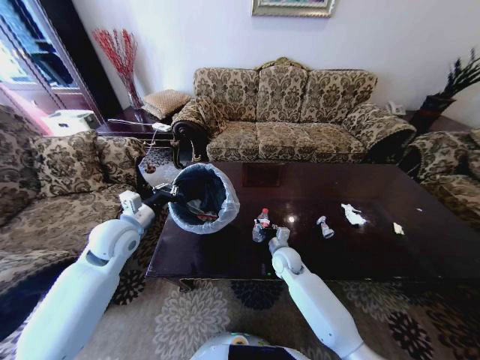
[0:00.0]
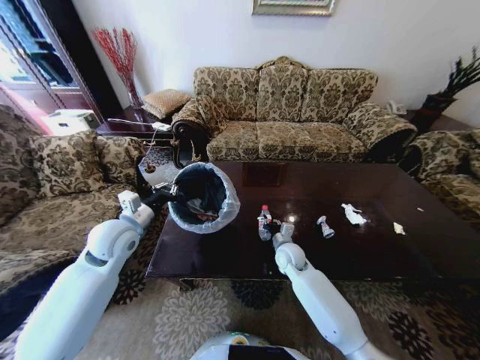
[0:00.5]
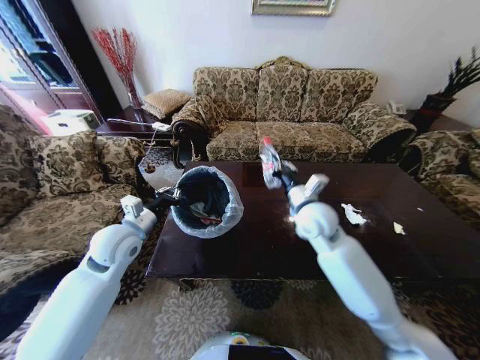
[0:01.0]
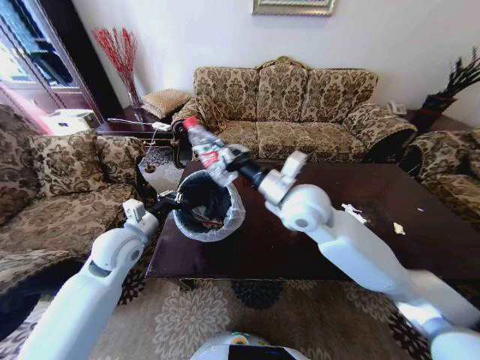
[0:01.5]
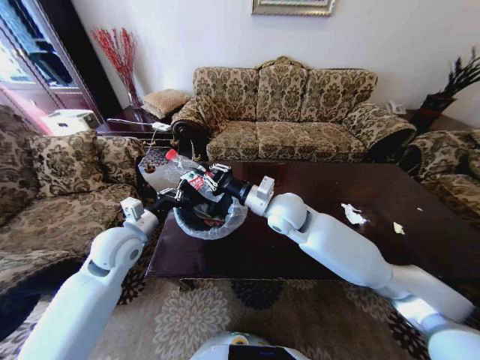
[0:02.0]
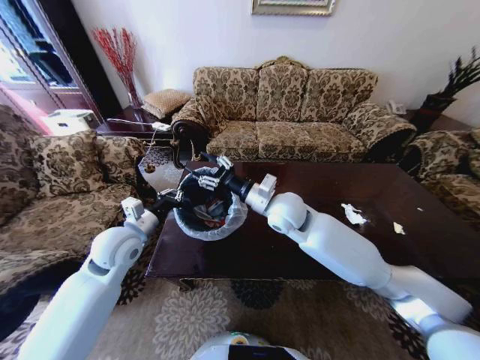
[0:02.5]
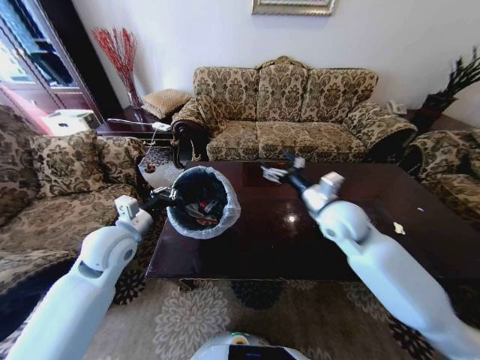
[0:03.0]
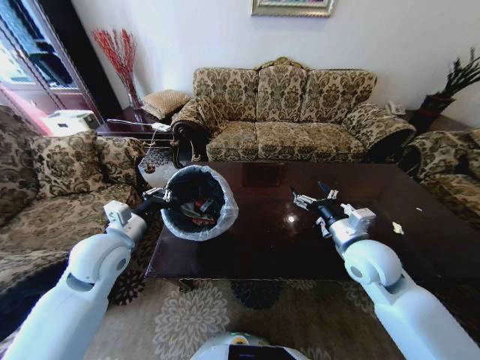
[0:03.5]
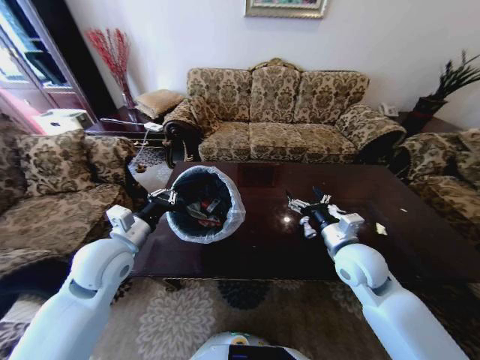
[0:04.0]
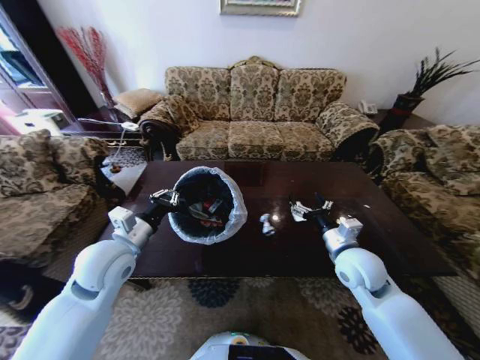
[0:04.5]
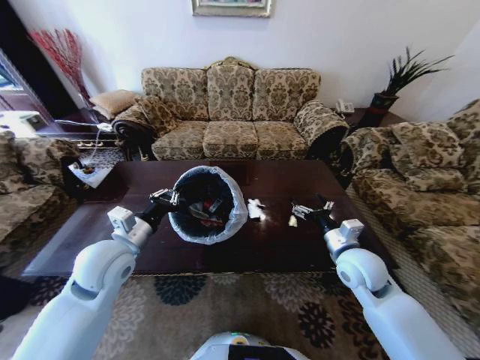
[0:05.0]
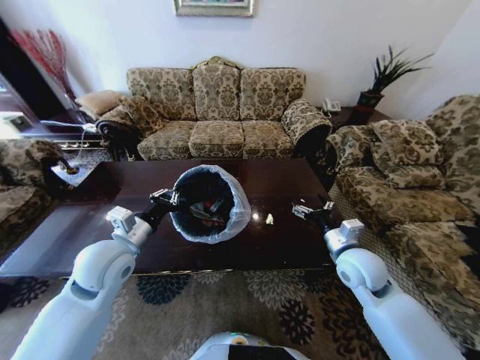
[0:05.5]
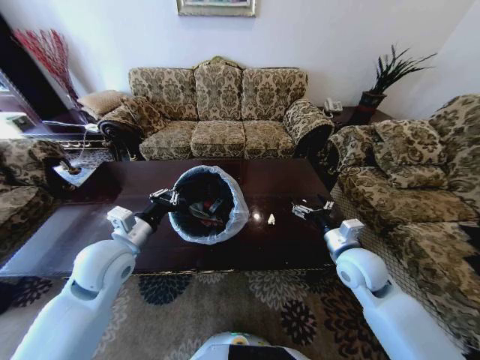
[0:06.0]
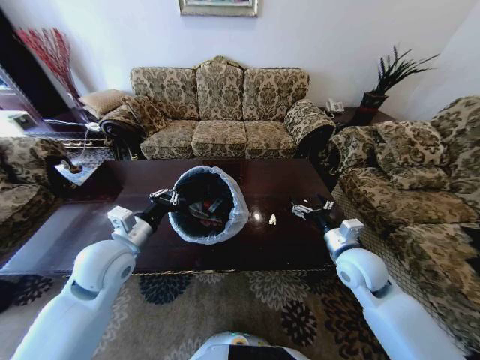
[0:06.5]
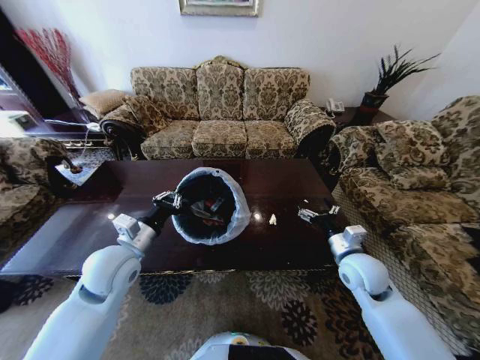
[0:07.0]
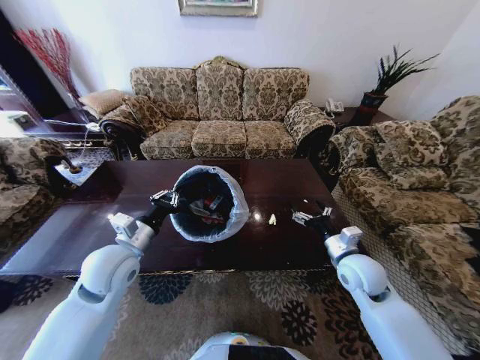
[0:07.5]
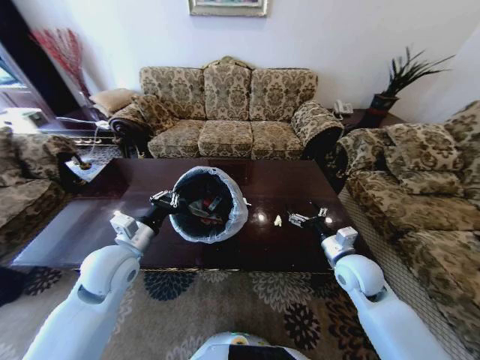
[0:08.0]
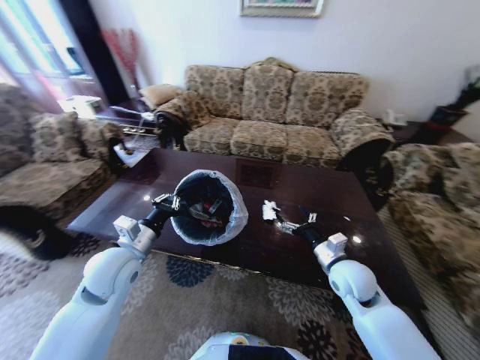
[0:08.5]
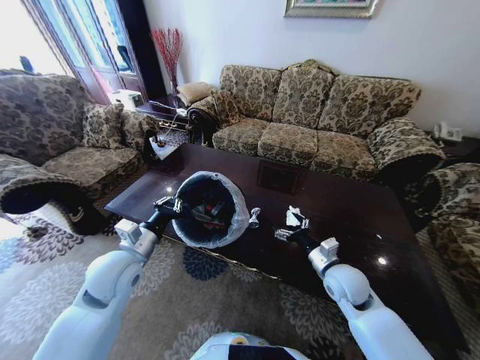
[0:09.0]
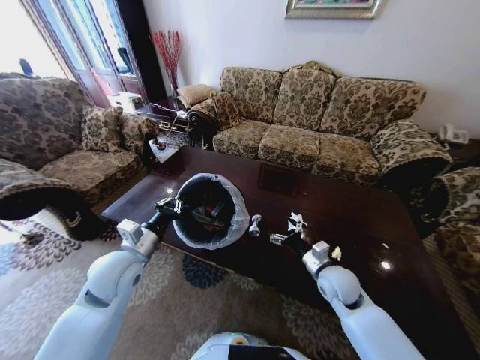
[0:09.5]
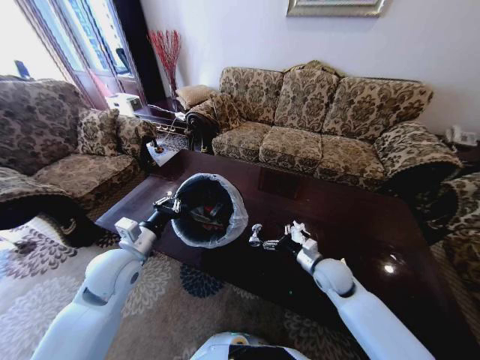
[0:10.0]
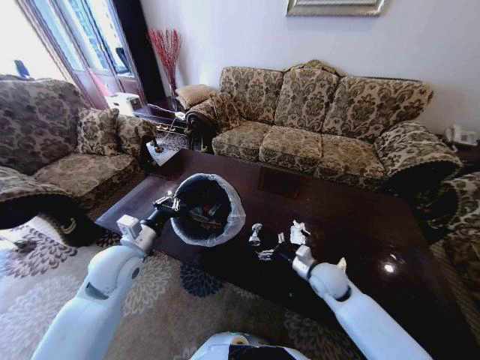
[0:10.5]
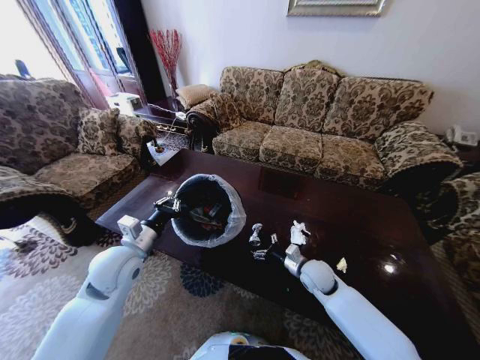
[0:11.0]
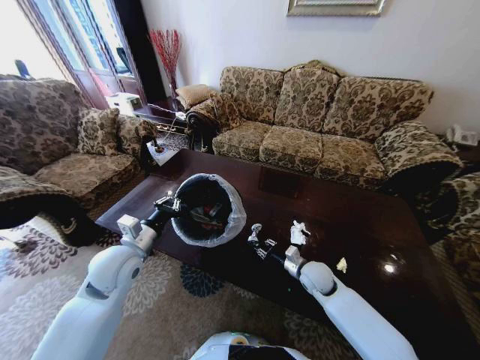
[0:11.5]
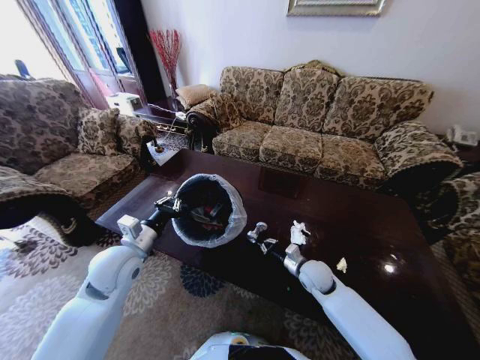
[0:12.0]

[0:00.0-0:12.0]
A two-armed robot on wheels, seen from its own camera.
Task of the whole recording: Move to the front of the table and place the trash on the table into the trash bin.
0:00.0 to 0:02.0: The right gripper goes about 25 cm upward, and closes its fingers.
0:02.0 to 0:04.0: The right gripper heads to the right, backward and downward, covering roughly 20 cm, and opens.
0:08.0 to 0:10.0: The right gripper moves downward, roughly 5 cm.
0:10.0 to 0:12.0: The right gripper ends up some 5 cm from where it was, and closes its fingers.

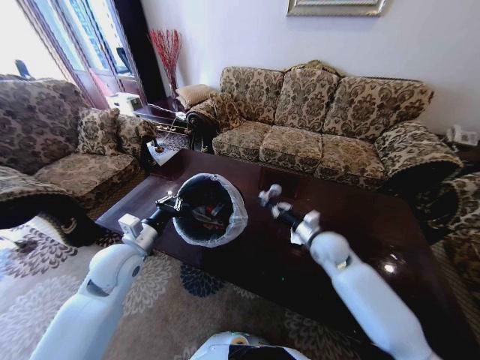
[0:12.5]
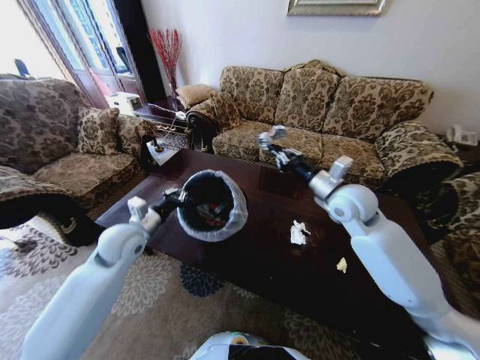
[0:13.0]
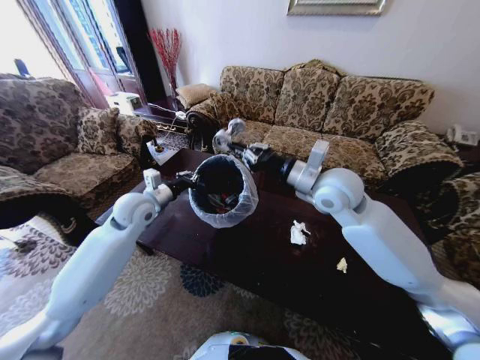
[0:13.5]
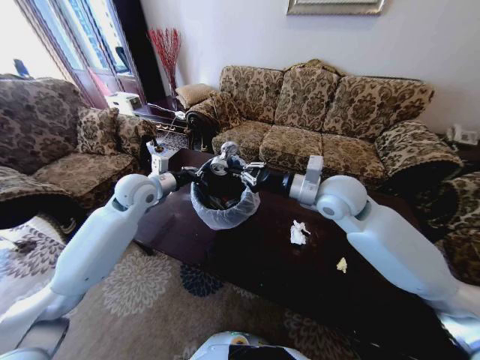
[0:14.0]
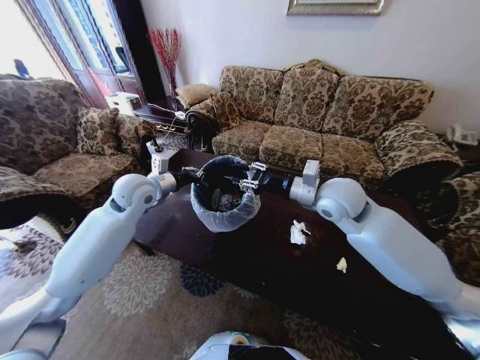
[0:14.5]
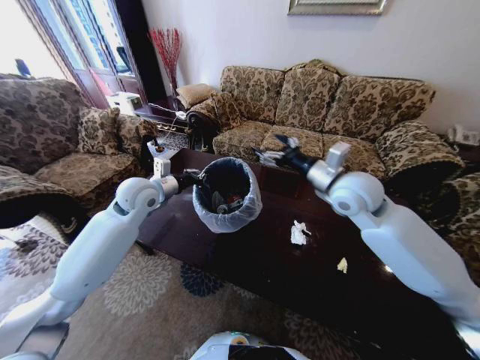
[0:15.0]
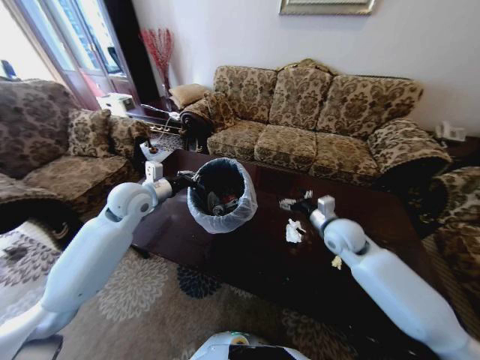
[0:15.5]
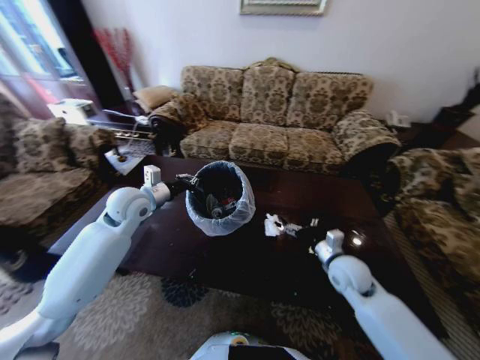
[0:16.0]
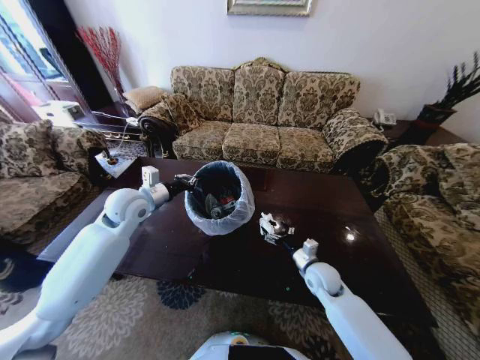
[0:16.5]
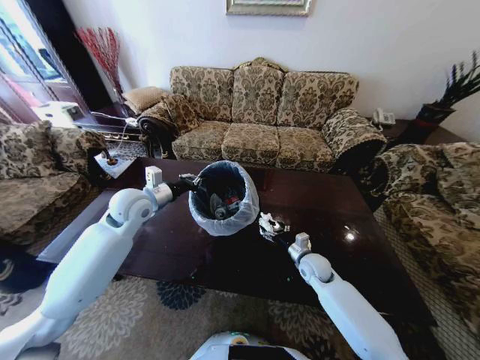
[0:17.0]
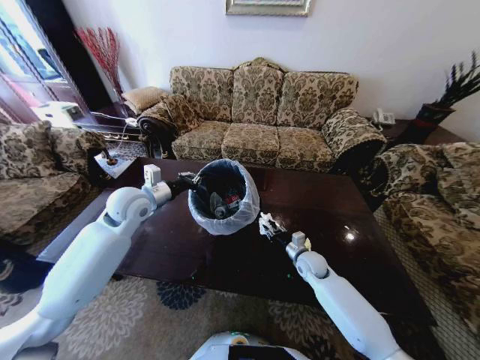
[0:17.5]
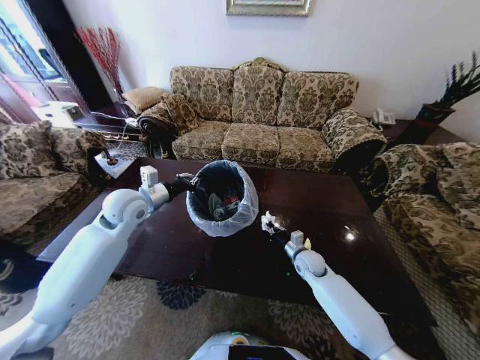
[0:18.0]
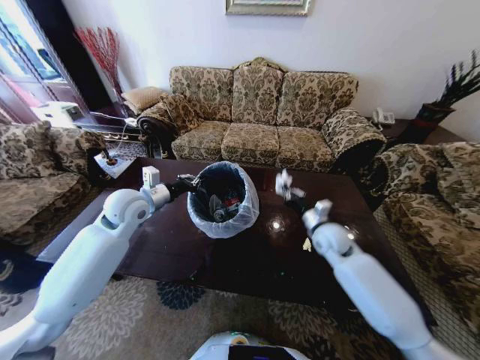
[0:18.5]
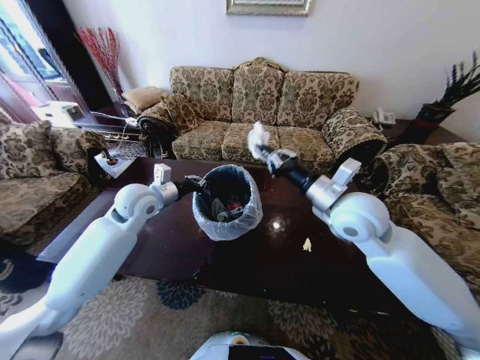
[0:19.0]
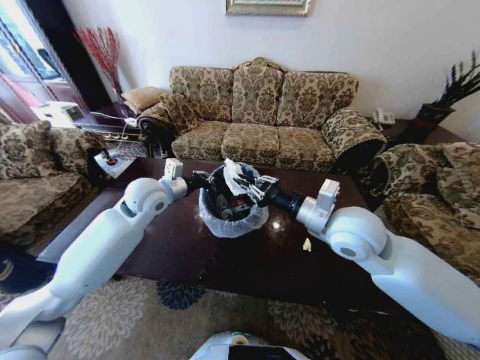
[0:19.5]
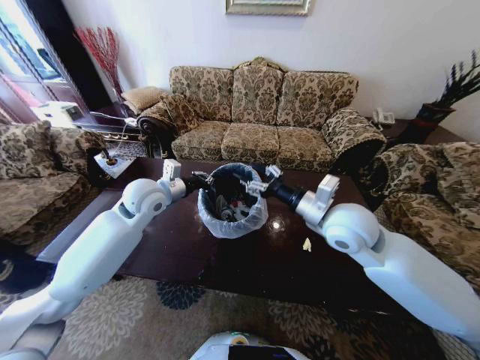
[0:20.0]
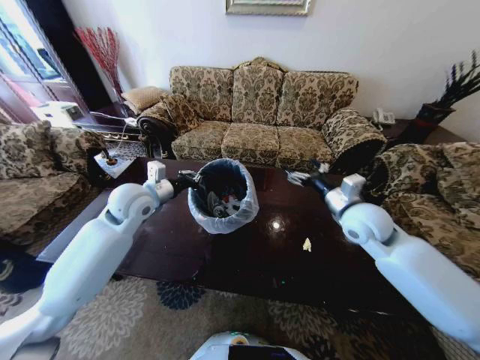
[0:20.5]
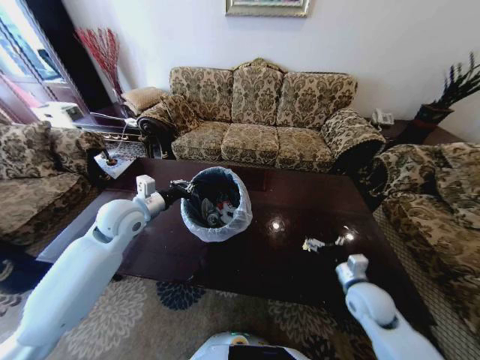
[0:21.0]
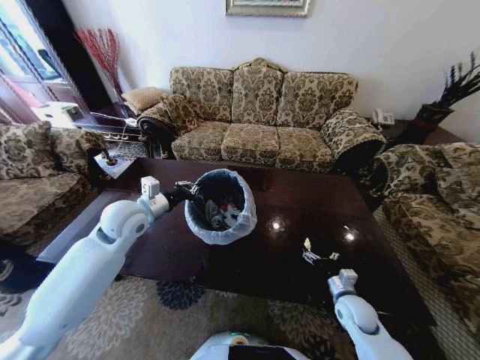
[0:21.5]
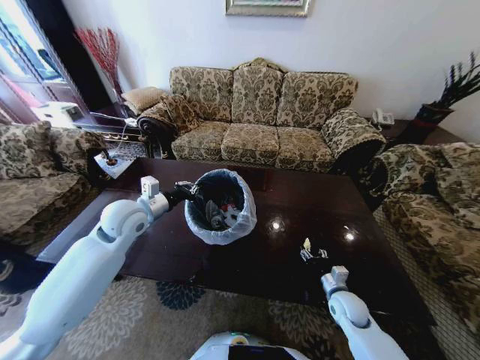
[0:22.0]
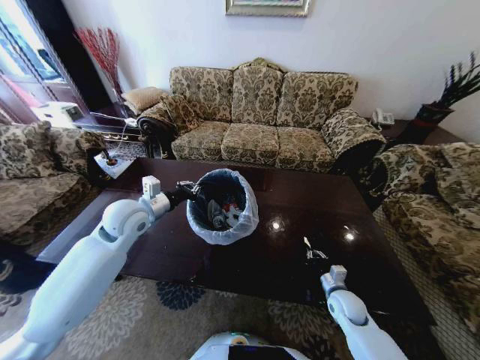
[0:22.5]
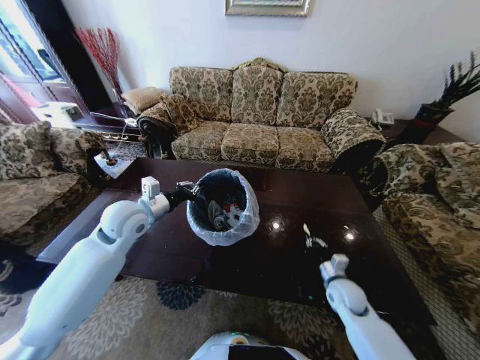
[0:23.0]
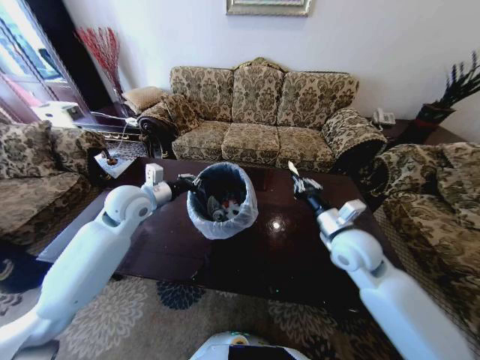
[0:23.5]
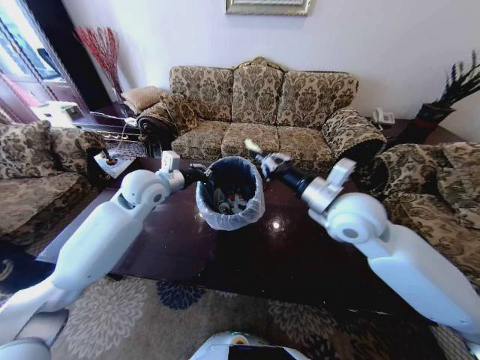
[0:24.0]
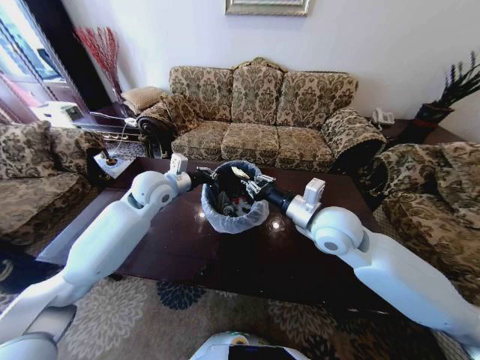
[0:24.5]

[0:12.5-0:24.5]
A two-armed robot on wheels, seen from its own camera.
Task of the whole recording: Move to the front of the table and place the trash on the table into the trash bin.
0:12.5 to 0:14.5: The left gripper heads forward and upward, covering some 20 cm. Meanwhile the right gripper travels upward by about 20 cm, and opens.
0:14.5 to 0:16.5: The right gripper is displaced downward by approximately 30 cm, and opens up.
0:16.5 to 0:18.5: The right gripper moves upward and forward, roughly 15 cm, and closes its fingers.
0:18.5 to 0:20.5: The right gripper heads upward, covering roughly 10 cm, and opens.
0:20.5 to 0:22.5: The right gripper goes about 30 cm downward, and closes its fingers.
0:22.5 to 0:24.5: The left gripper moves forward, about 5 cm. The right gripper is displaced upward and to the left by approximately 35 cm.

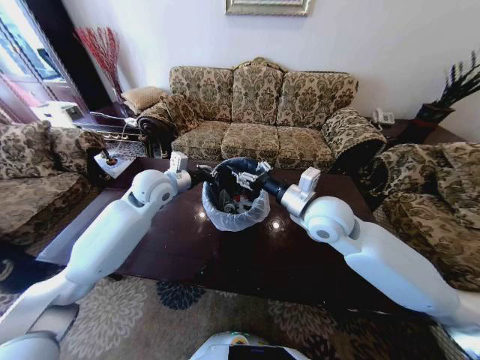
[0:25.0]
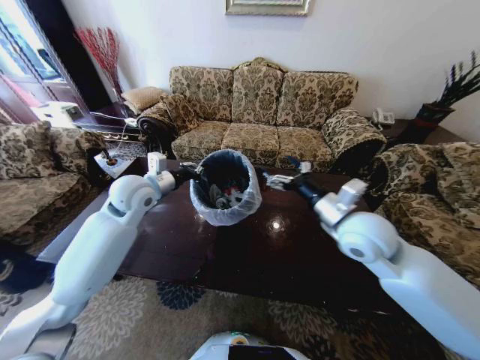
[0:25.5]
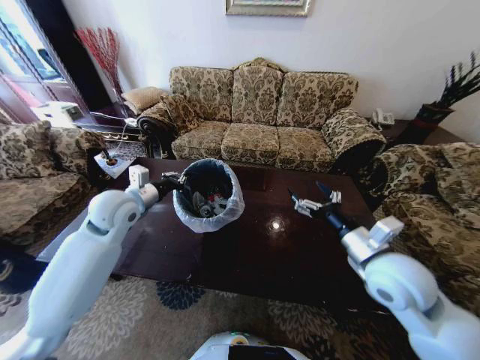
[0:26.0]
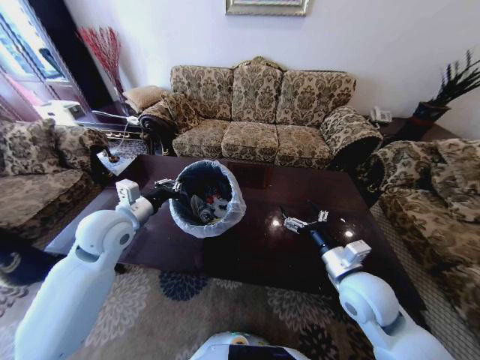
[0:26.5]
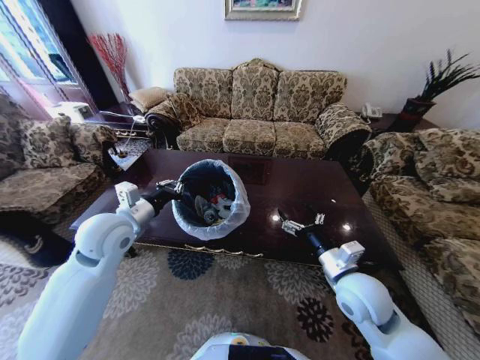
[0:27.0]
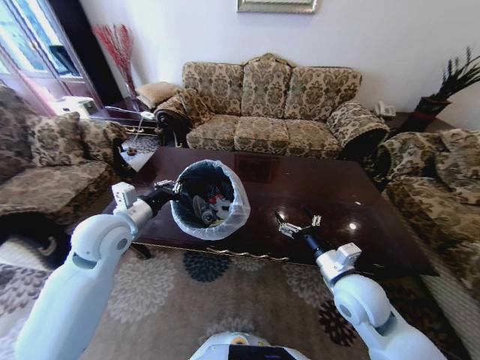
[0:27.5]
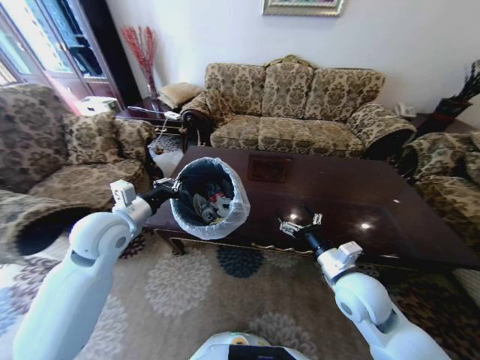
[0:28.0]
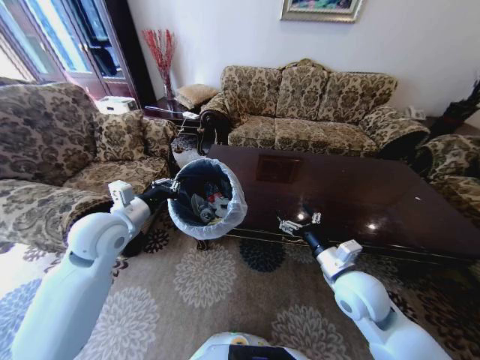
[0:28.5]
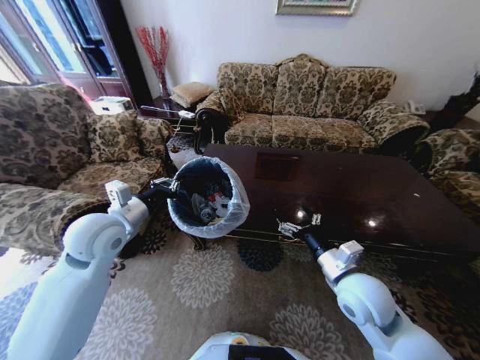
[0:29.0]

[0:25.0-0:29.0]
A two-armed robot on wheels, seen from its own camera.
Task of the whole recording: Move to the front of the table and place the trash on the table into the trash bin.
0:25.0 to 0:27.0: The left gripper shifts approximately 15 cm backward and to the left. Meanwhile the right gripper shifts approximately 20 cm downward, backward and to the right, and opens up.
